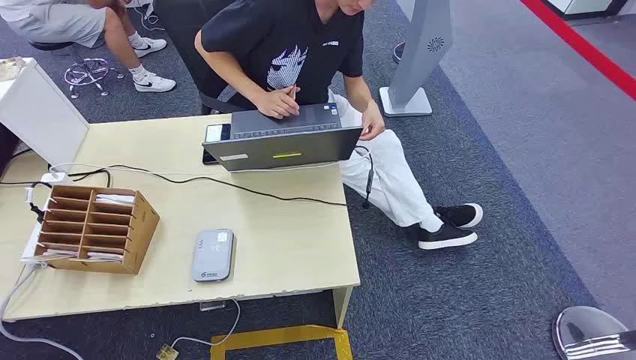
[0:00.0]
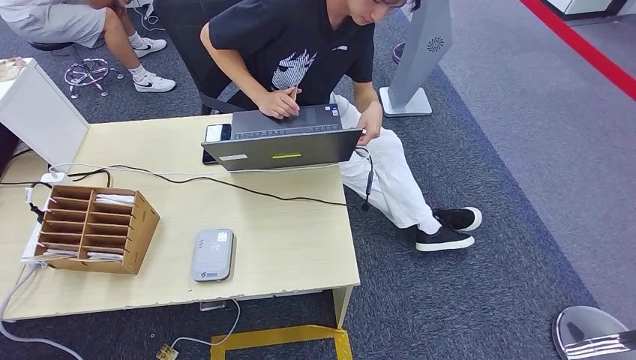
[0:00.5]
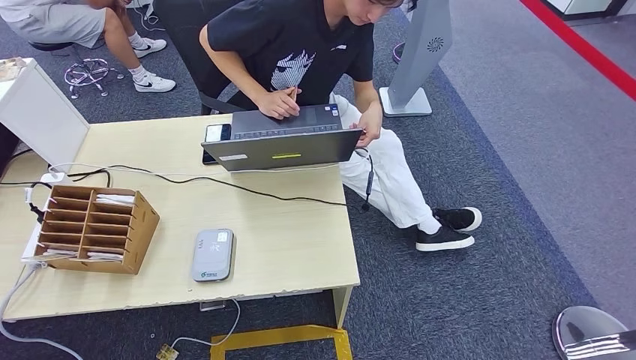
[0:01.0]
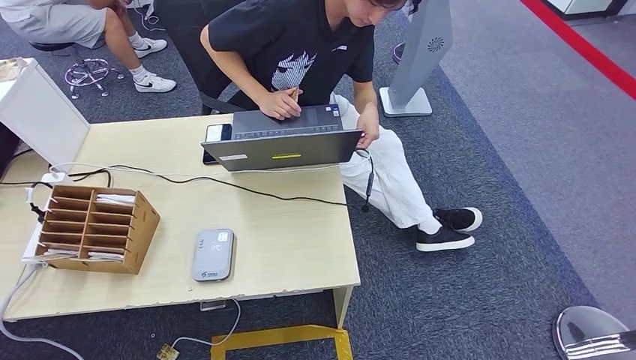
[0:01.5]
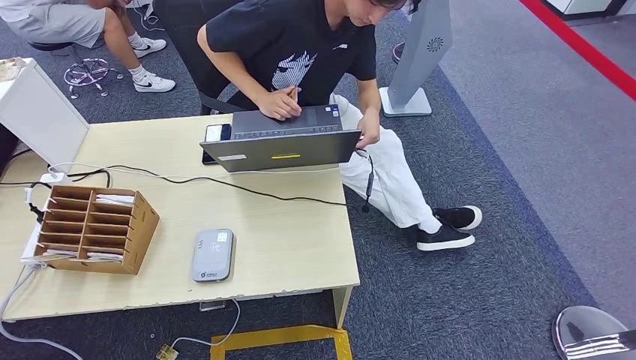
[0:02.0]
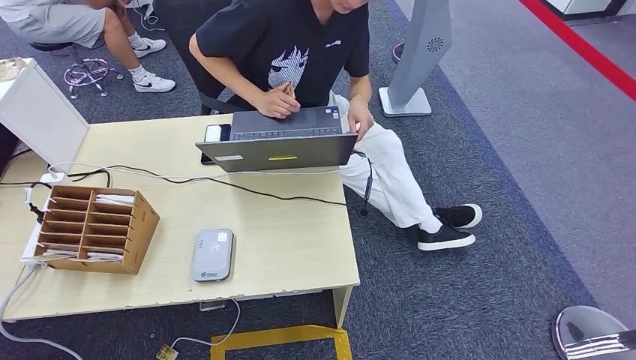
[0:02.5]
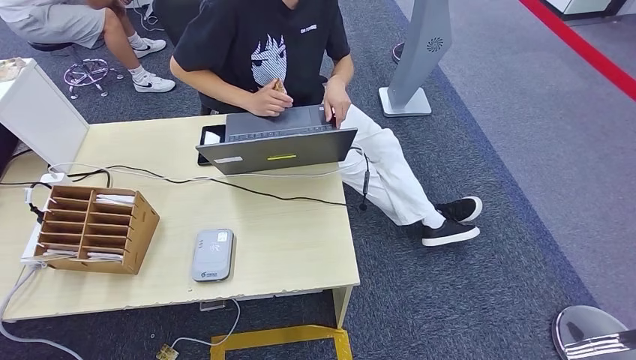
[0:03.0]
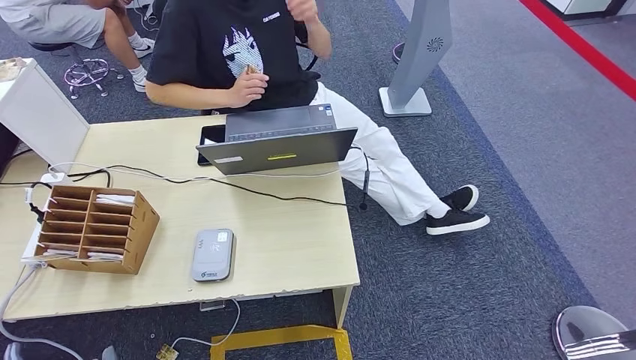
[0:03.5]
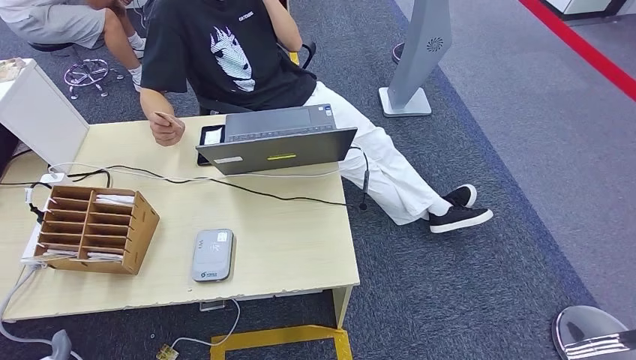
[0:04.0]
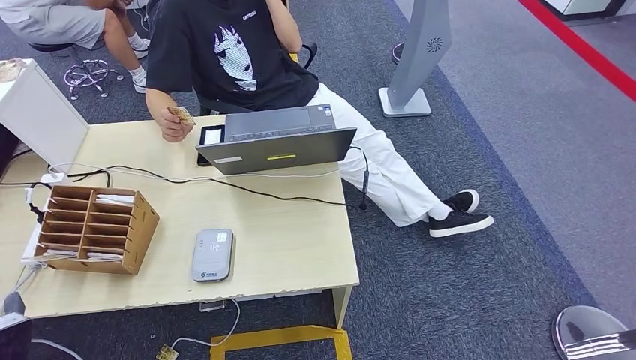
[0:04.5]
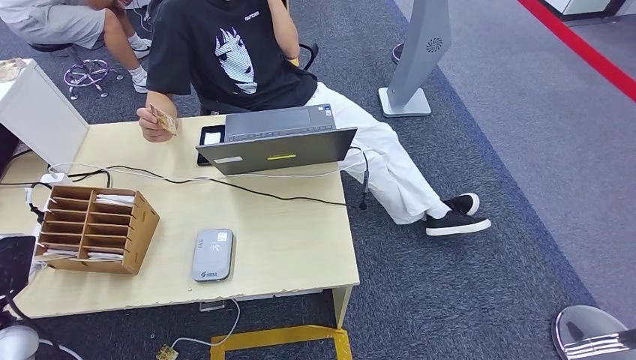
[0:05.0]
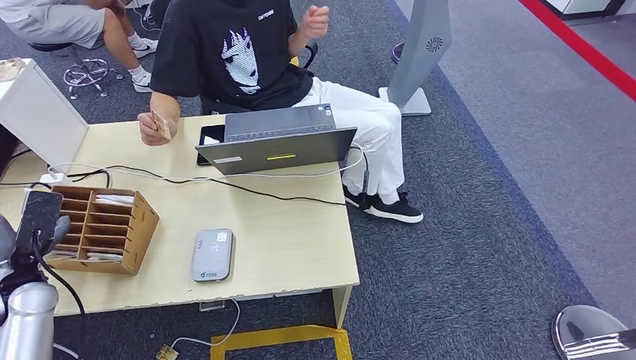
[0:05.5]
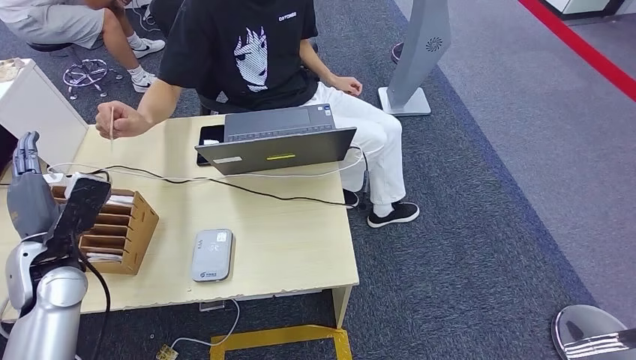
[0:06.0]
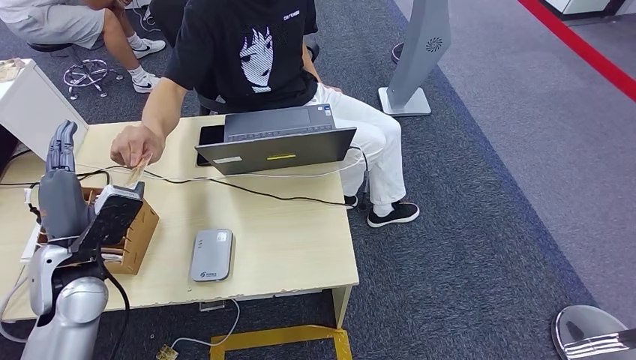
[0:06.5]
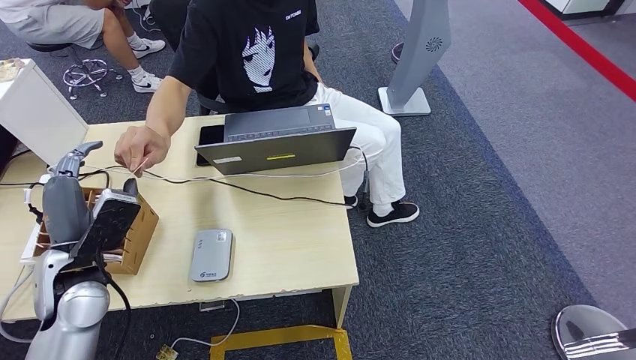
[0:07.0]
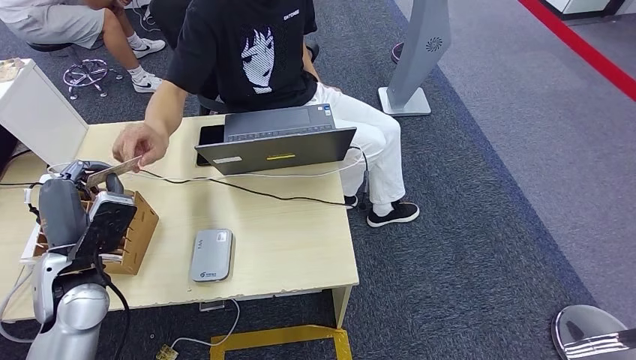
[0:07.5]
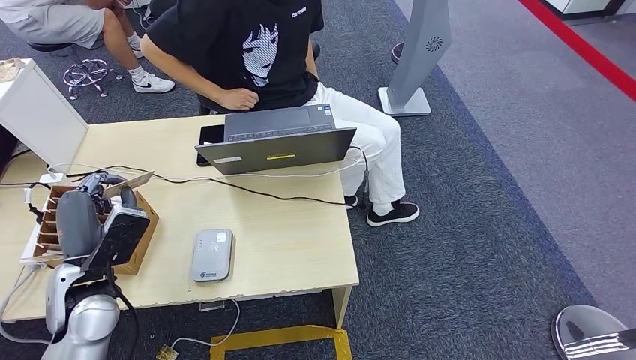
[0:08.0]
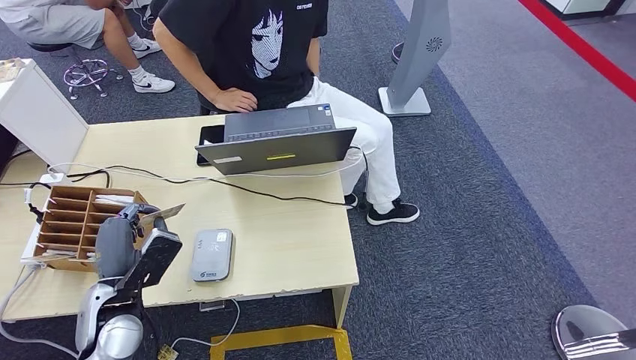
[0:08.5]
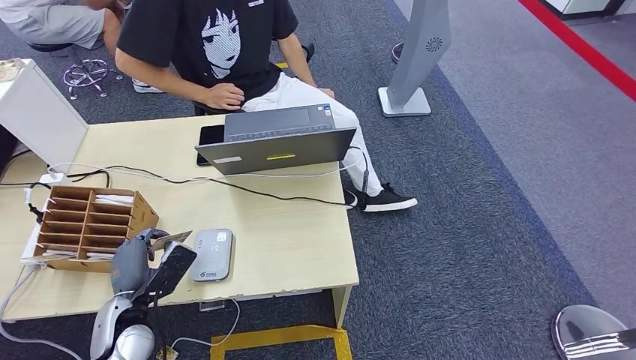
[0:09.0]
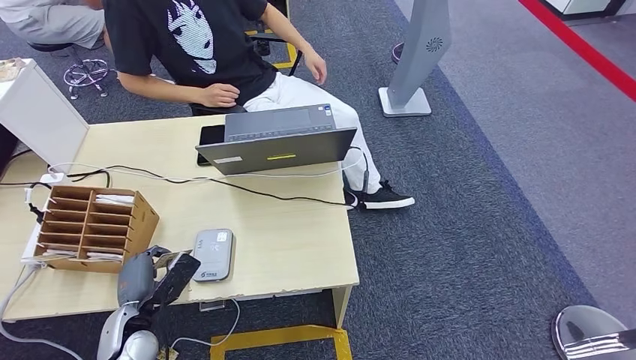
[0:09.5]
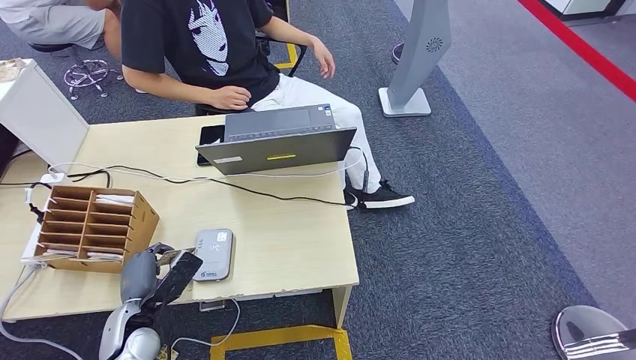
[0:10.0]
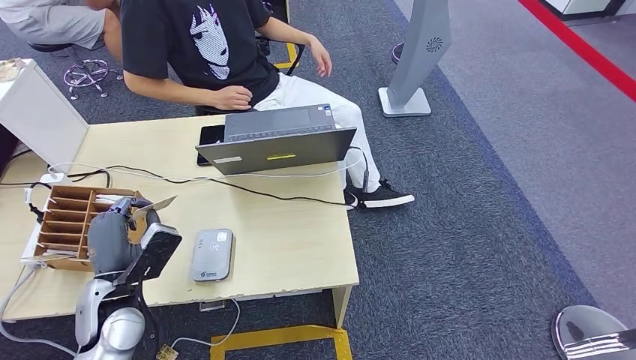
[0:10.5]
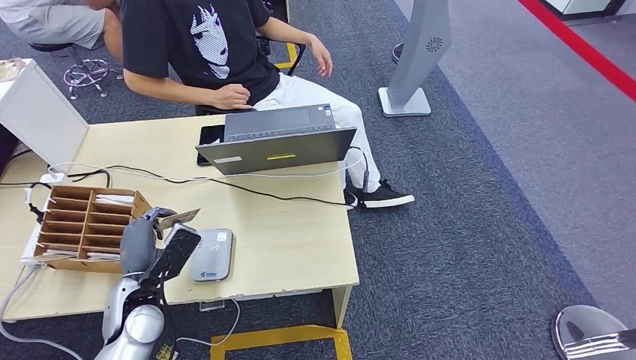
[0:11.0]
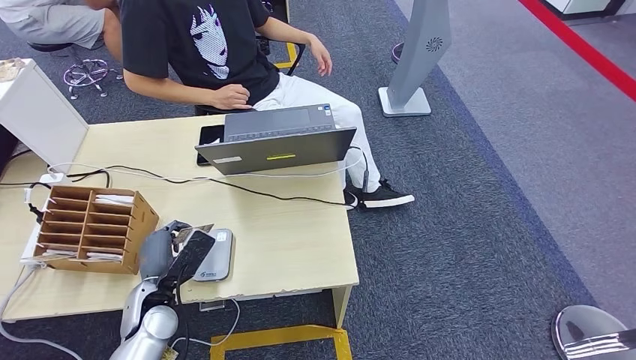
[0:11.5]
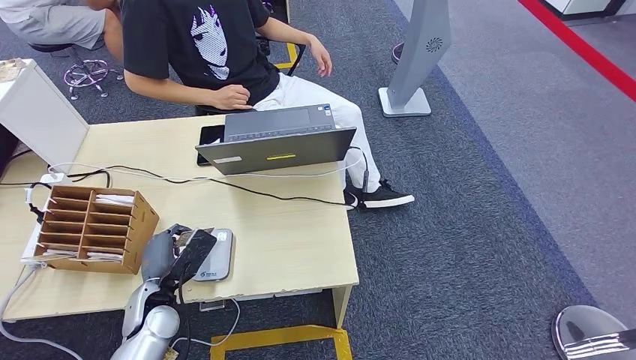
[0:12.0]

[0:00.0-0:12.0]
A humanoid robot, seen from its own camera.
Step, 0:00.0 to 0:08.0: Take the ID card from the person's hand.
Step, 0:08.5 to 0:10.0: Place the ID card on the card reader.
0:02.0 to 0:04.0: The left hand goes approximately 15 cm upward and forward.
0:04.0 to 0:06.0: The left hand travels forward and upward by roughly 25 cm.
0:06.0 to 0:08.0: The left hand shifts roughly 5 cm to the right.
0:08.0 to 0:10.0: The left hand shifts roughly 15 cm downward.
0:10.0 to 0:12.0: The left hand moves some 10 cm upward and comes back.

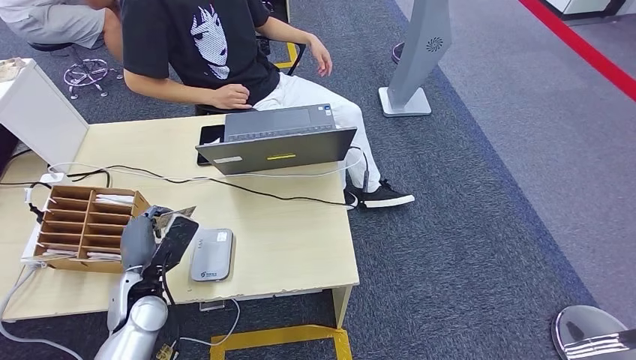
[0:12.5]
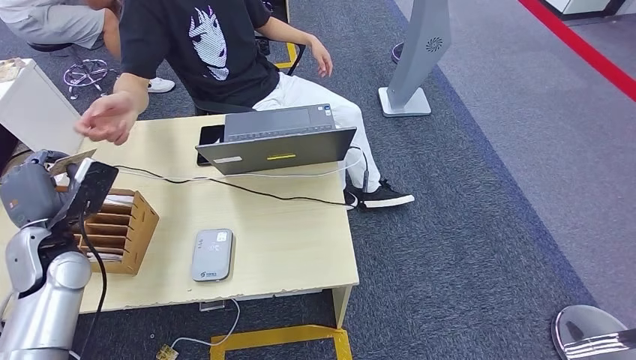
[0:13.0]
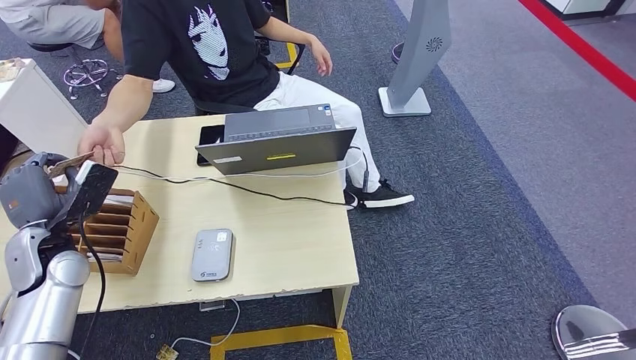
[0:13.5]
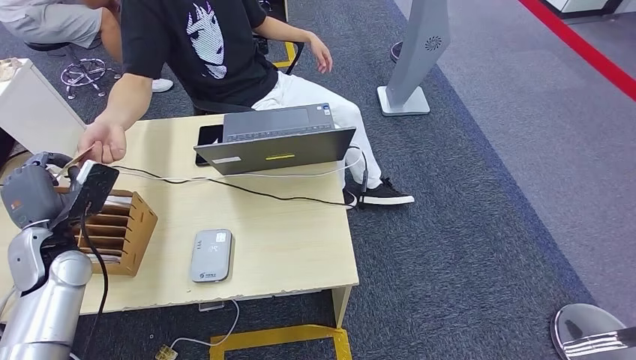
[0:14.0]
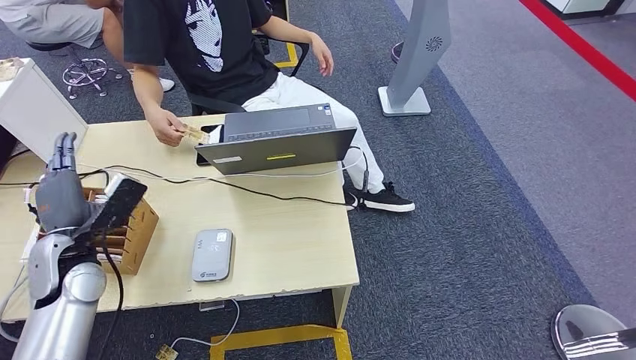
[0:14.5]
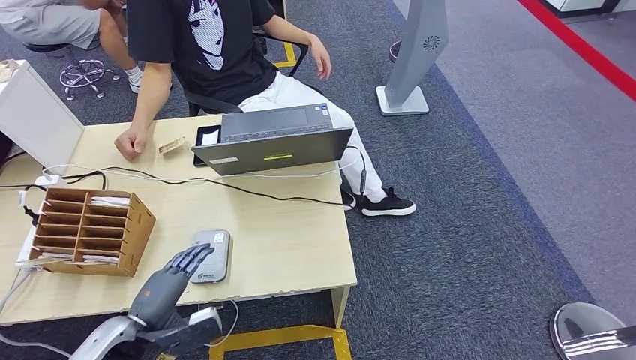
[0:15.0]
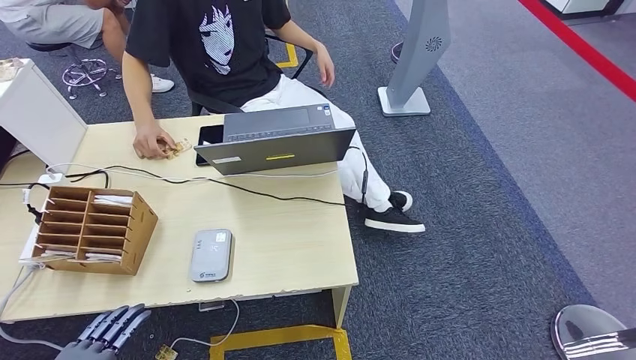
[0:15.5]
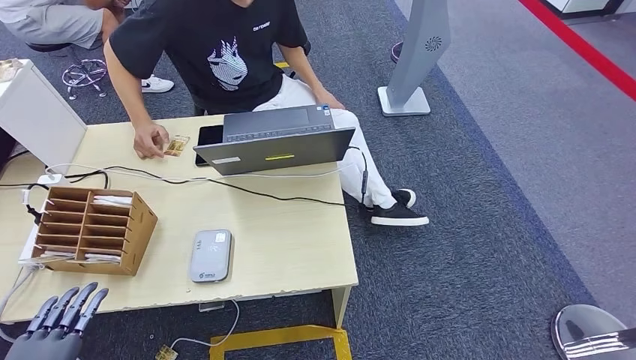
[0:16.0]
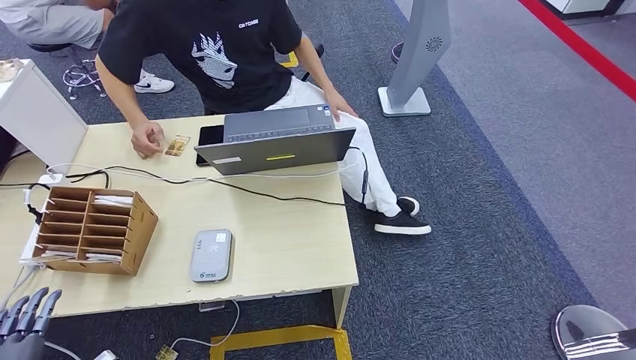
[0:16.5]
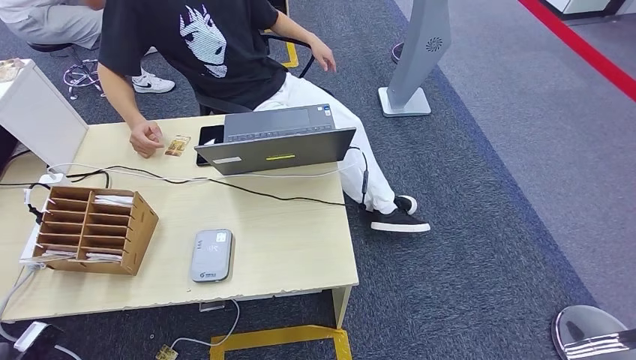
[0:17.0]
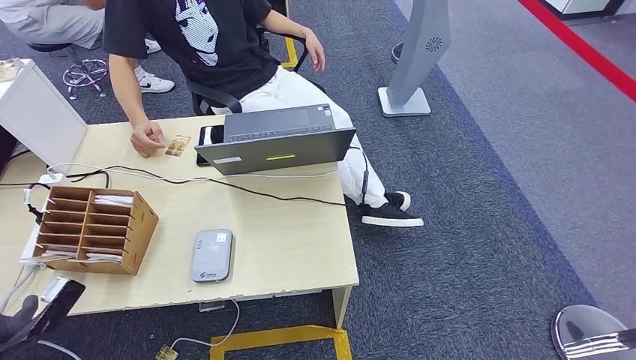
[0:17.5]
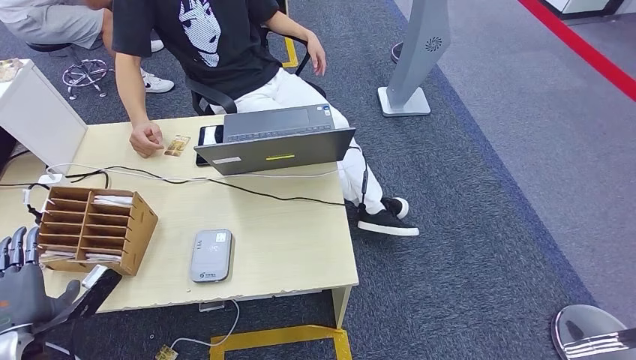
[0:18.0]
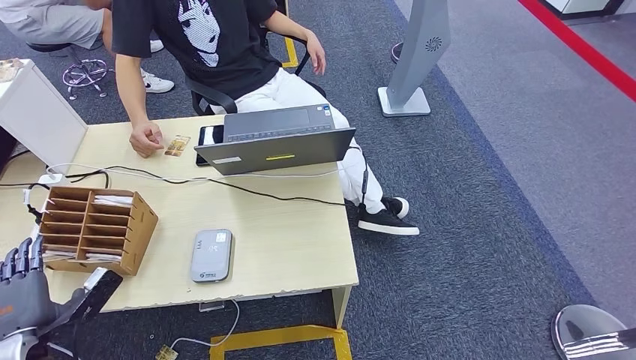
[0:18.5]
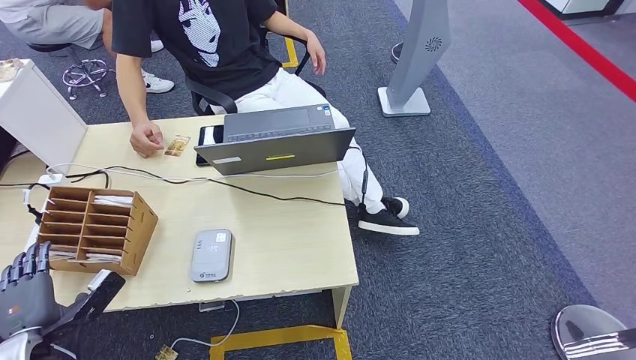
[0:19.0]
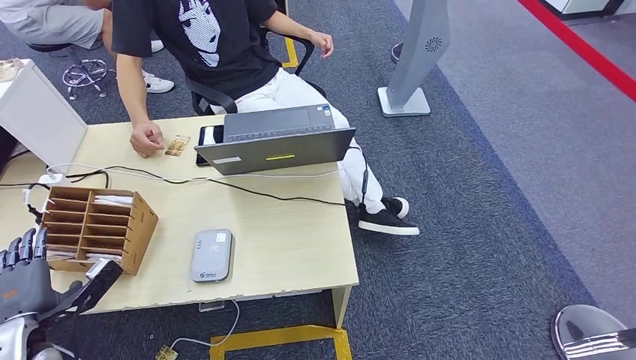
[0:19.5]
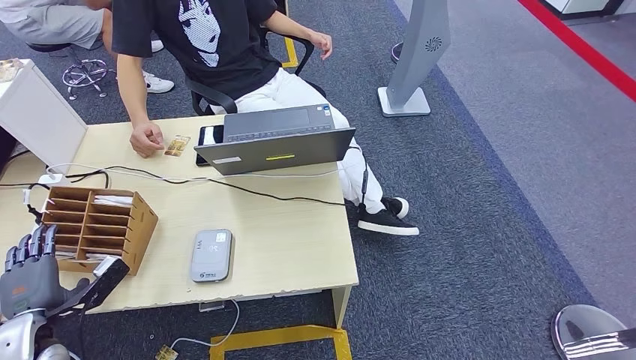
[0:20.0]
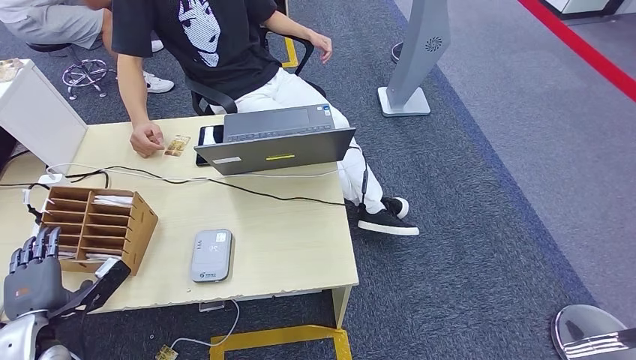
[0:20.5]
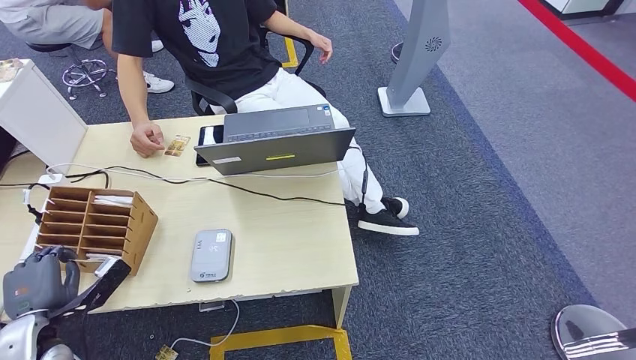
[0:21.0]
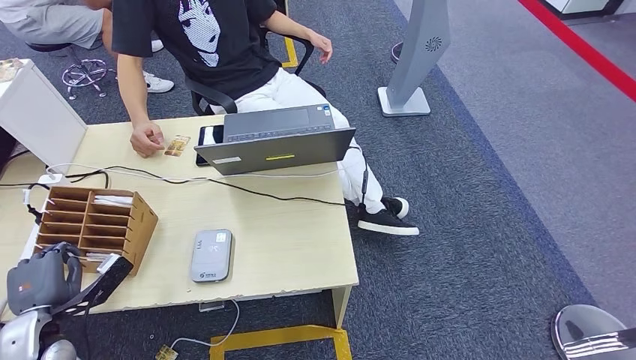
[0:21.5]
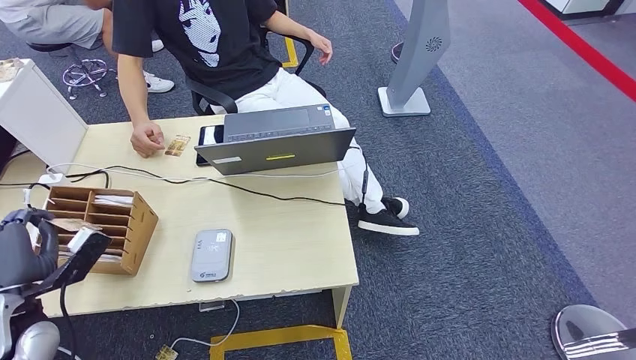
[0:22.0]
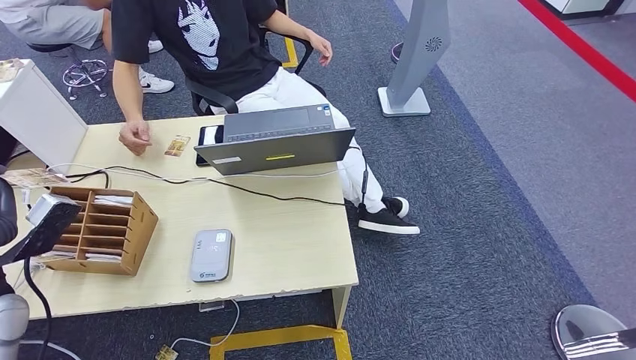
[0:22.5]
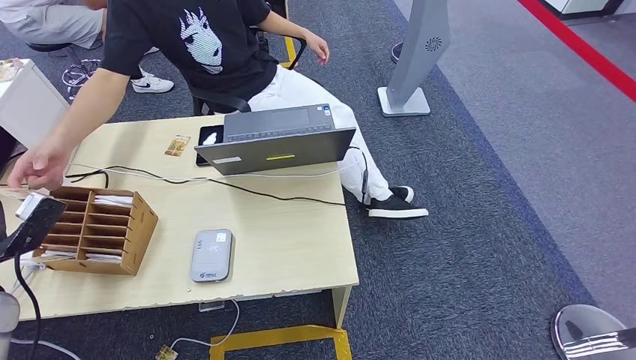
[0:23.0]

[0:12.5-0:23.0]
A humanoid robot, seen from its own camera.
Step, 0:14.5 to 0:22.5: Pick up the room key from the key card box.
0:12.5 to 0:14.5: The left hand heads upward and to the left, covering some 10 cm.
0:14.5 to 0:16.5: The left hand moves backward, about 25 cm.
0:16.5 to 0:19.0: The left hand heads forward and downward, covering about 15 cm.
0:19.0 to 0:21.0: The hands move only a little.
0:21.0 to 0:23.0: The left hand goes about 15 cm upward and forward.
